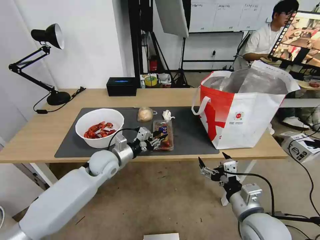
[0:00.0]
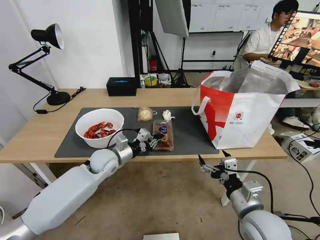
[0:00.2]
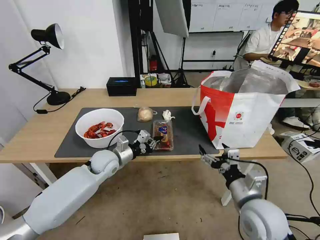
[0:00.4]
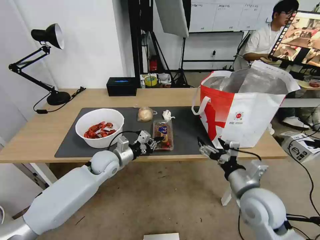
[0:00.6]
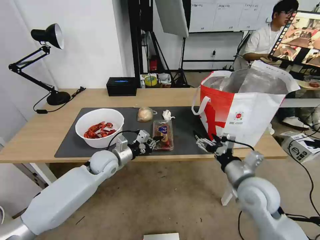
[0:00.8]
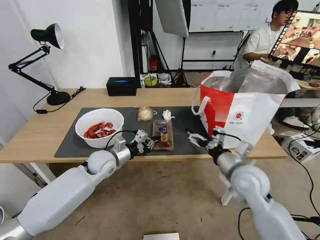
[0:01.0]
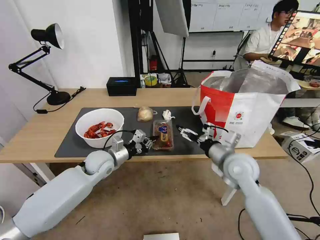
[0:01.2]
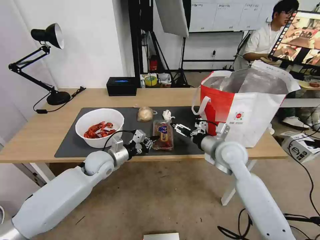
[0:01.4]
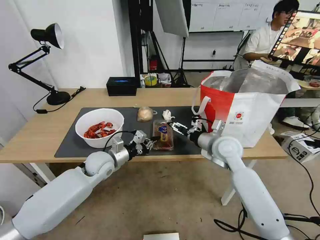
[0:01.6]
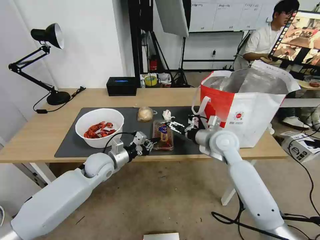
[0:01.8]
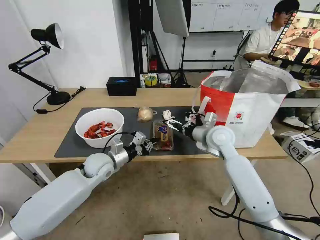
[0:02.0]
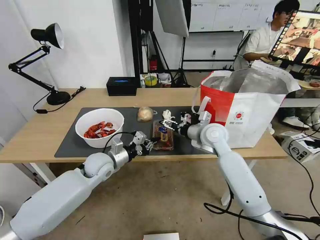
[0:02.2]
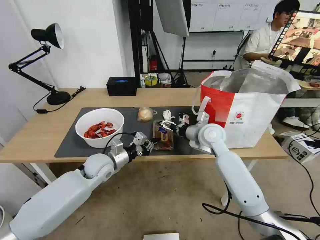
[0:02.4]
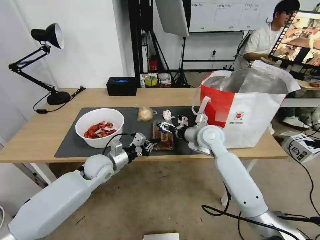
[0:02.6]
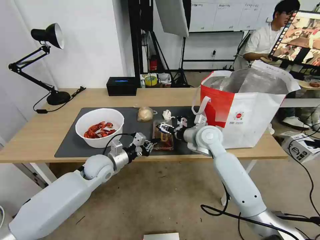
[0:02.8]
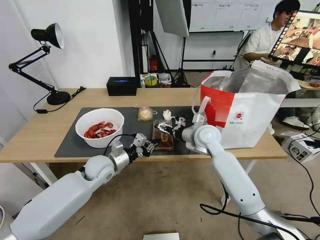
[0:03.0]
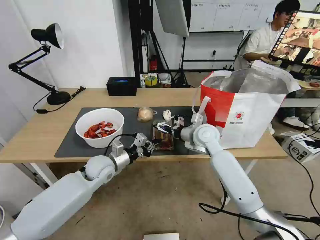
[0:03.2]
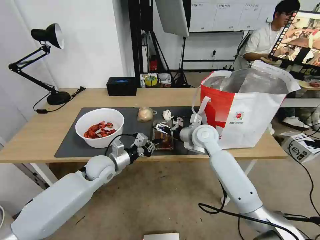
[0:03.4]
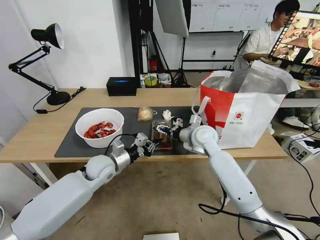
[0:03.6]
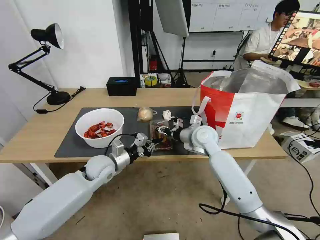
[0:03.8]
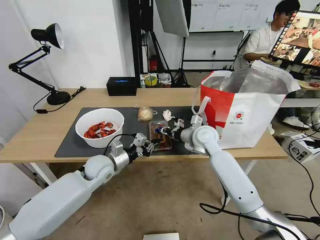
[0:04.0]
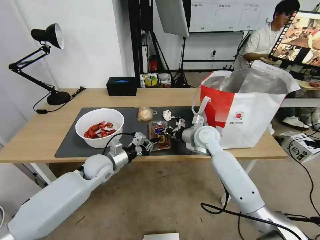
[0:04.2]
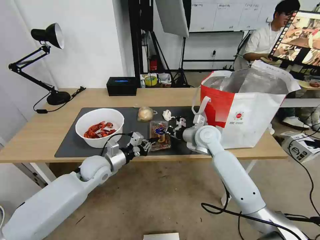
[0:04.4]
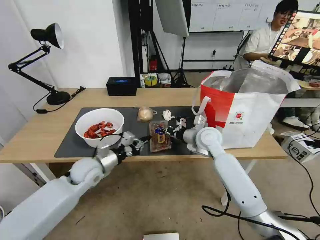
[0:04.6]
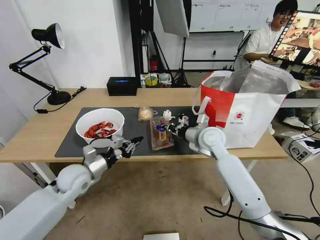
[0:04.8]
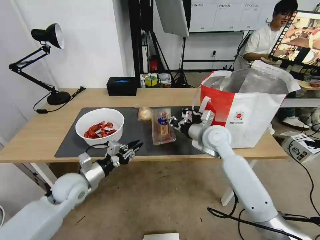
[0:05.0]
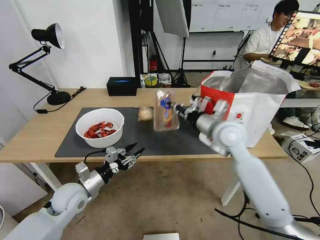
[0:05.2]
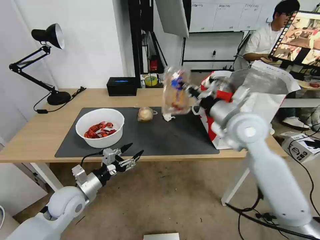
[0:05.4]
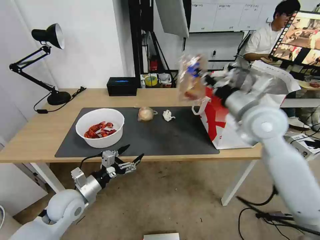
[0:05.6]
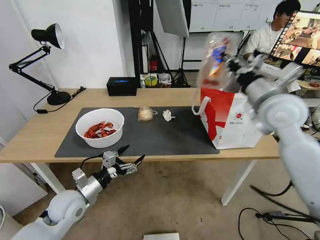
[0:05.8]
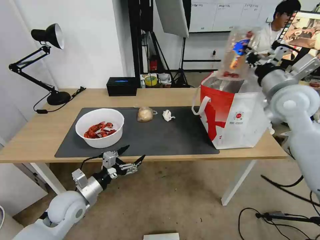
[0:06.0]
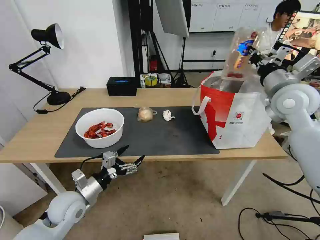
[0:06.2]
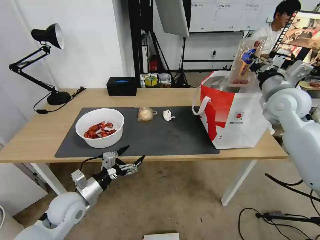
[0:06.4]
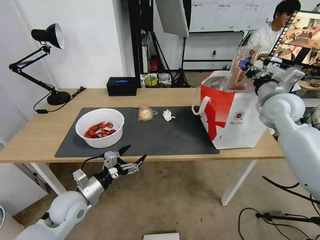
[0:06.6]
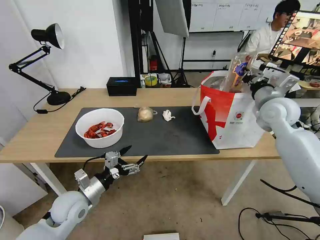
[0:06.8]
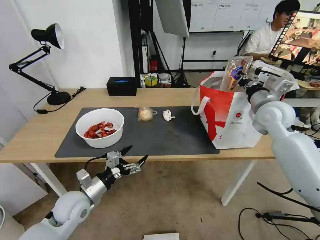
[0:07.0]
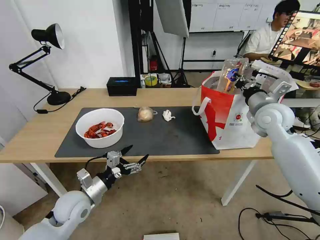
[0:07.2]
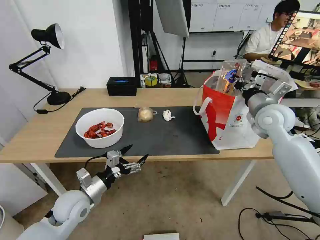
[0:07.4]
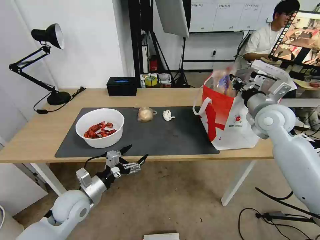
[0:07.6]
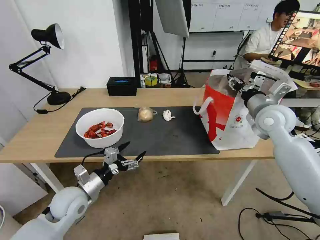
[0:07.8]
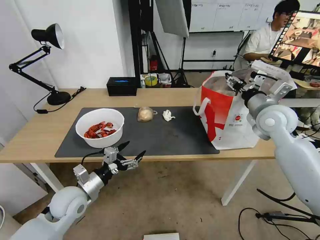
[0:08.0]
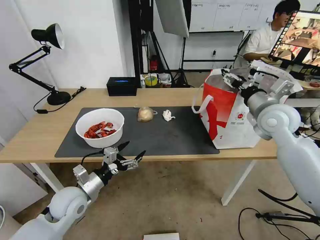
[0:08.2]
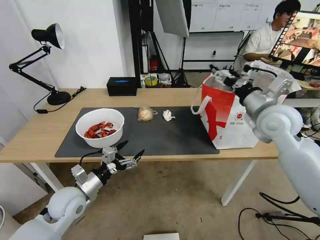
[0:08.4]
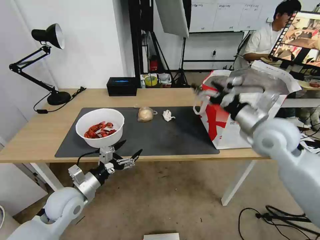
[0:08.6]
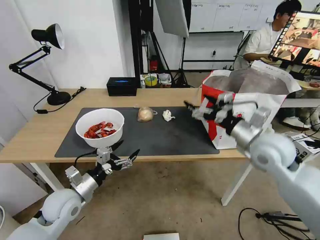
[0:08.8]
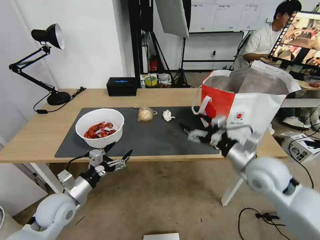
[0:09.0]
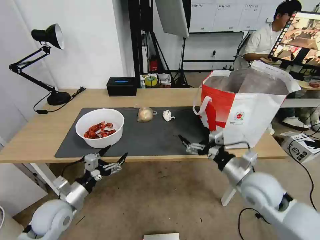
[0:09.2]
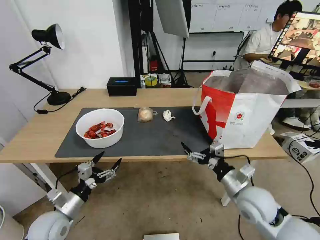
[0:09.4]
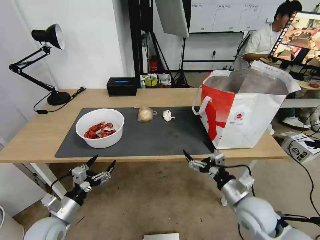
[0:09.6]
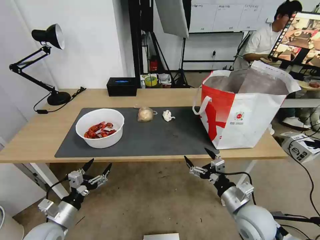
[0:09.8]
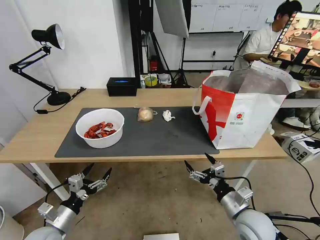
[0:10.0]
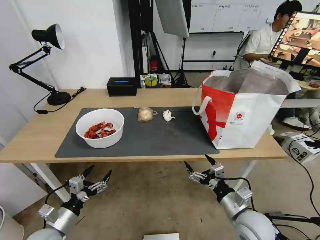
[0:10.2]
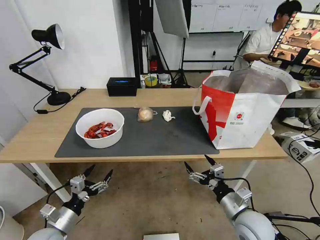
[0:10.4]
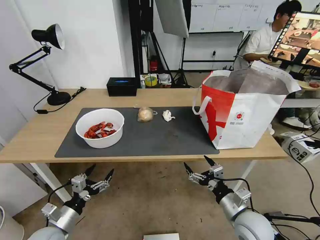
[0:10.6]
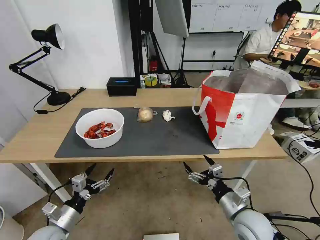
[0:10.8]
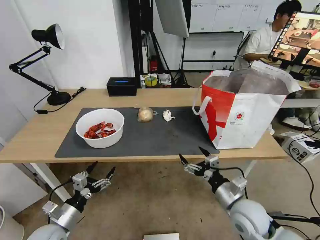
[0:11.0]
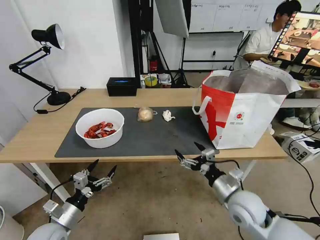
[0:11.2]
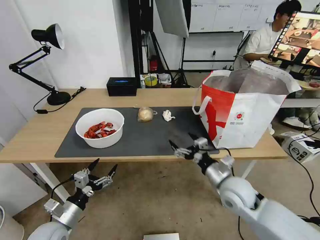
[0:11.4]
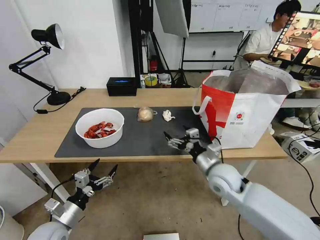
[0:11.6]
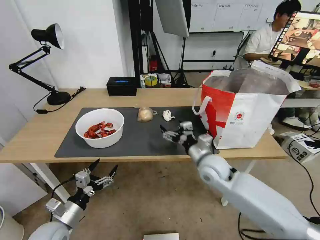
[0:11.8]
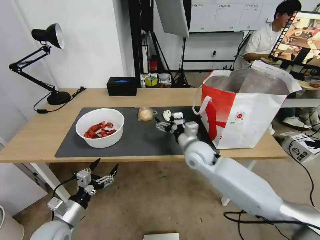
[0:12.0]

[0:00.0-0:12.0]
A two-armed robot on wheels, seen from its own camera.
Task of the whole recording: Pick up the trash from the table and place it into the takeout bag.
0:00.0 to 0:01.6: The right gripper heads forward, covering approximately 20 cm.
0:01.6 to 0:03.0: The right gripper travels forward and to the left by some 10 cm.
0:03.0 to 0:04.4: The right gripper closes up.
0:04.4 to 0:06.0: The left gripper is displaced backward and to the left by some 15 cm, and opens, while the right gripper heads upward and to the right, covering approximately 25 cm.
0:06.0 to 0:07.6: The right gripper goes roughly 5 cm downward.
0:07.6 to 0:09.0: The right gripper shifts roughly 15 cm backward and downward, and opens up.
0:09.0 to 0:10.4: The left gripper shifts approximately 10 cm backward and downward. Meanwhile the right gripper goes some 20 cm downward and backward.
0:10.4 to 0:12.0: The right gripper travels forward and to the left by roughly 25 cm.

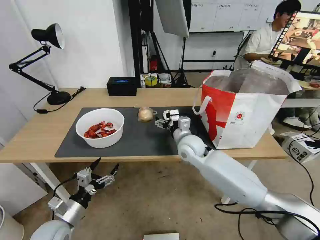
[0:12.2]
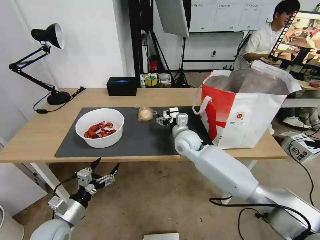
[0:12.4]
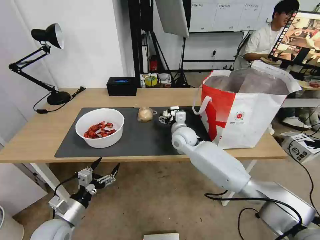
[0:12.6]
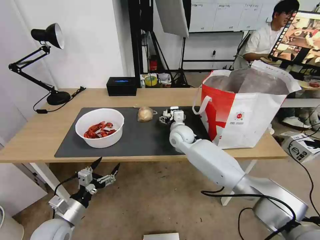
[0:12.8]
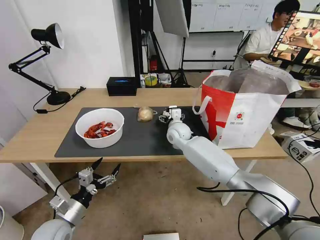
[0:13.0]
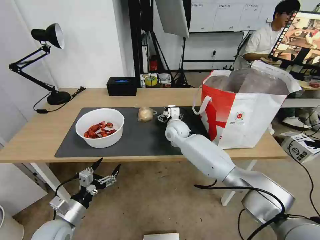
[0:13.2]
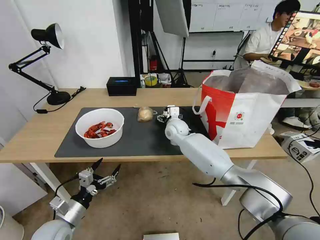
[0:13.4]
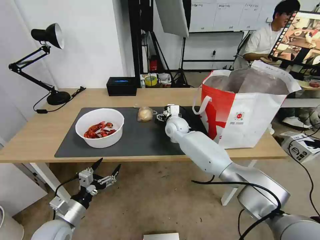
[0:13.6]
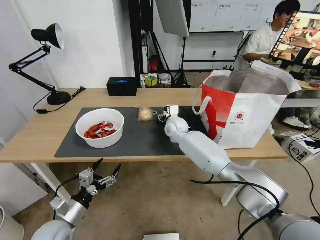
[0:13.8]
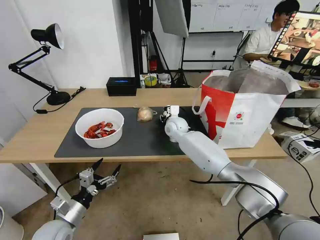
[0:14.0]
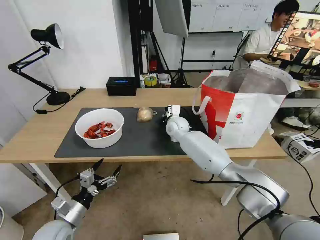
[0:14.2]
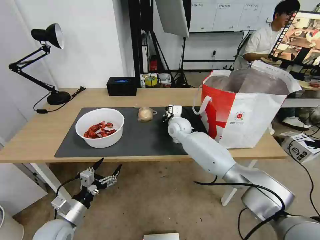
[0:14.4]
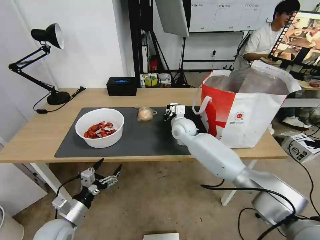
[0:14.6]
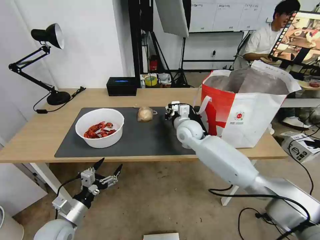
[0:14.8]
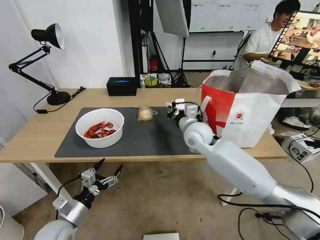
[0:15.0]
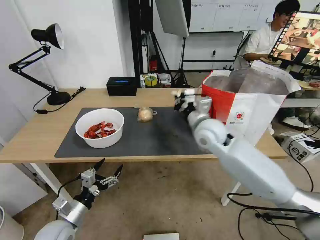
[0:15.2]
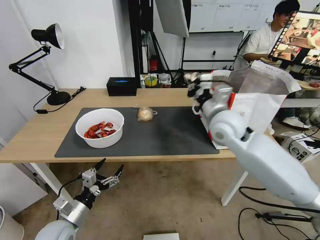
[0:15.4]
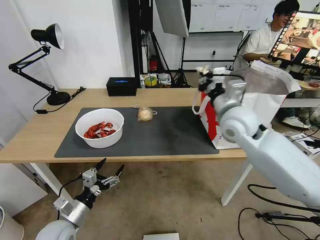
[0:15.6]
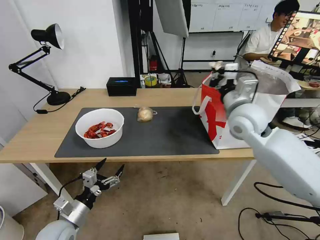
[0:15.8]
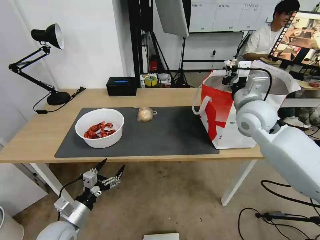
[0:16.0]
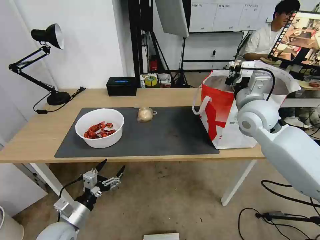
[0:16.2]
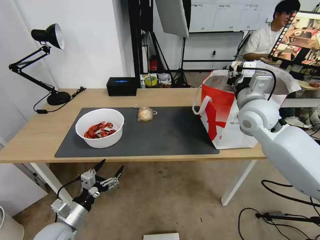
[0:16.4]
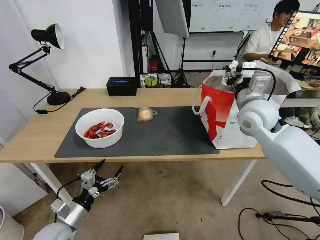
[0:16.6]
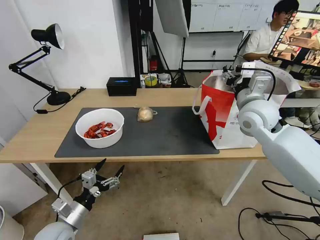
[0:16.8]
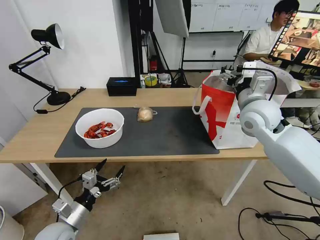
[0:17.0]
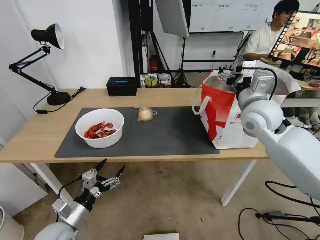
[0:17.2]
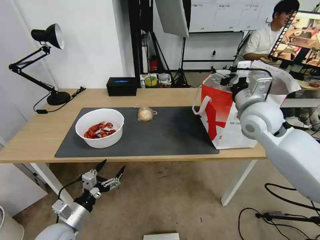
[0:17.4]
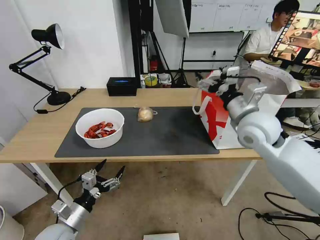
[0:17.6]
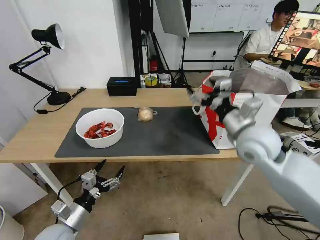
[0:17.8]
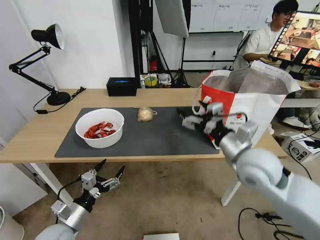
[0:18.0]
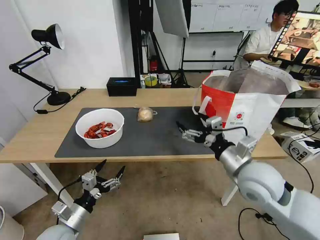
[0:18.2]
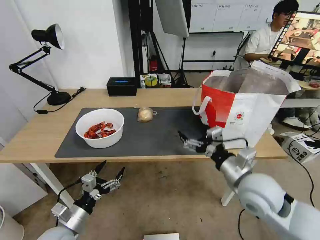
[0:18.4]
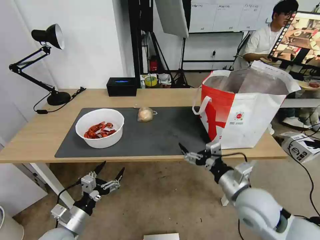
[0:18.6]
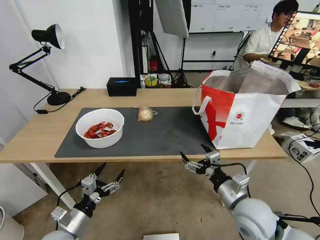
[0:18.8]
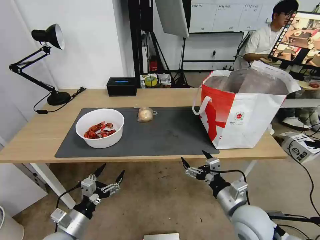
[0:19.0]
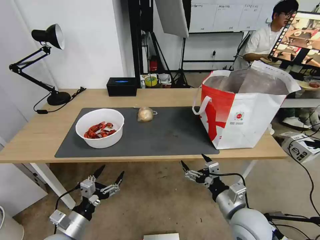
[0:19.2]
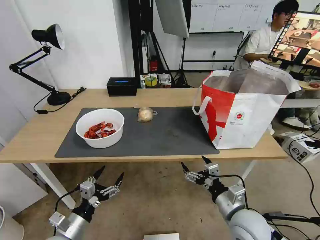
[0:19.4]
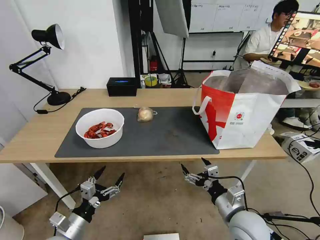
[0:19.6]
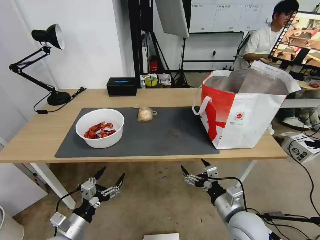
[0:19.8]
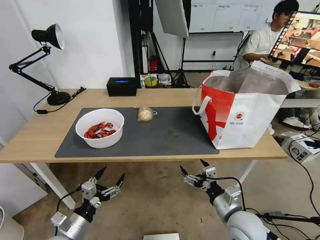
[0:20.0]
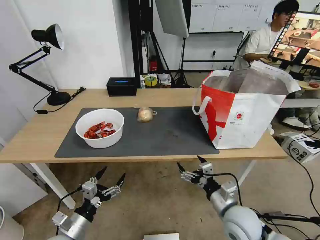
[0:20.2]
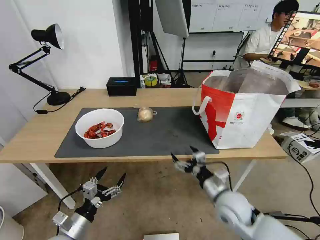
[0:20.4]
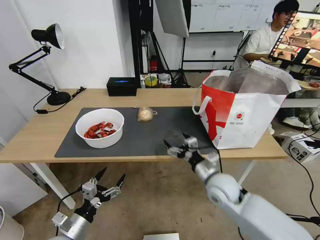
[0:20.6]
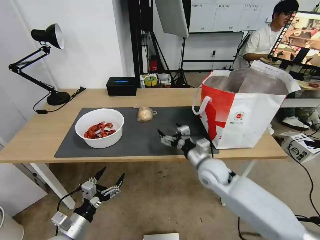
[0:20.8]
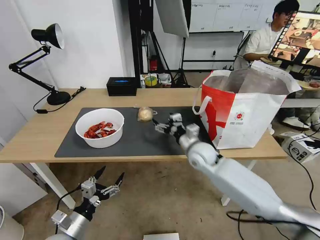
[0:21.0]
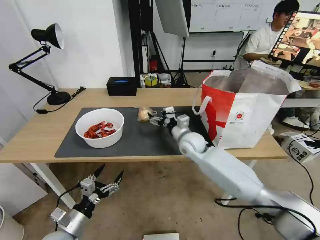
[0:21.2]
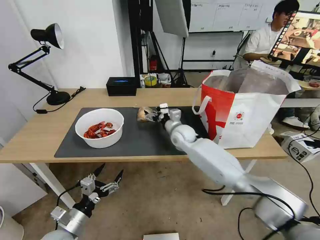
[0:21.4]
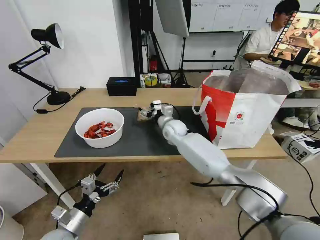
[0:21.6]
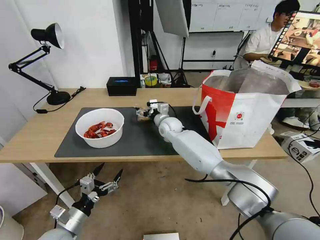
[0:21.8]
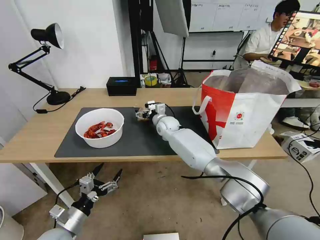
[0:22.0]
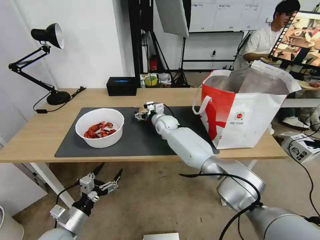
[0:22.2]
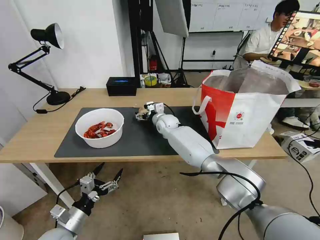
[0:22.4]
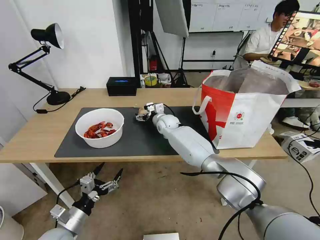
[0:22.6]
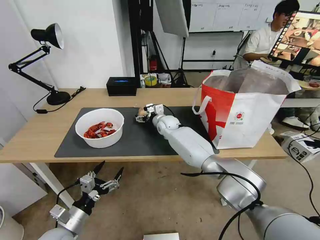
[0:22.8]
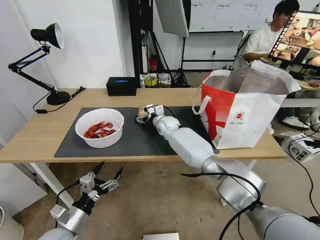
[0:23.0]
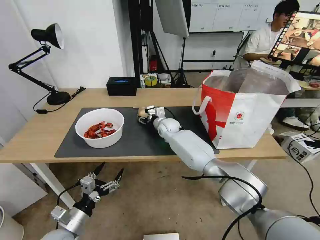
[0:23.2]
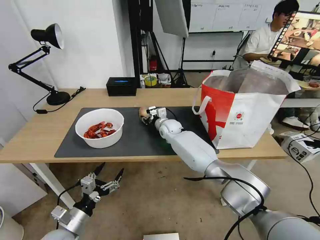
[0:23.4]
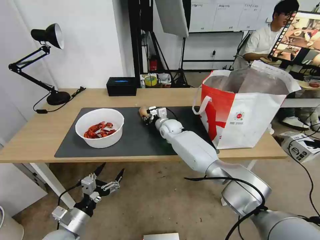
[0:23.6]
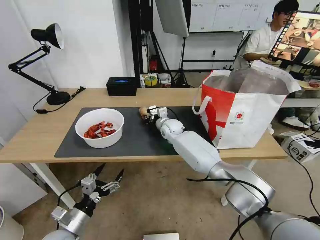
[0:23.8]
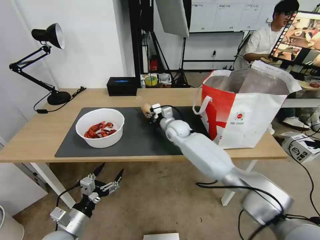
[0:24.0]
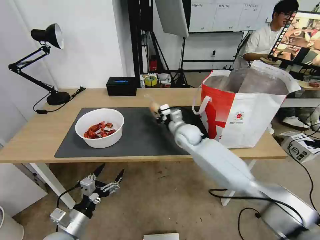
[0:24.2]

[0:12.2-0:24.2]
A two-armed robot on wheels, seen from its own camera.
Task of the whole recording: Pick up the trash from the table and place it into the takeout bag.
0:12.2 to 0:13.8: The right gripper travels forward by roughly 10 cm.
0:13.8 to 0:15.2: The right gripper shifts some 20 cm backward, upward and to the right, and closes up.
0:15.2 to 0:16.6: The right gripper shifts approximately 15 cm to the right and upward, and opens up.
0:16.6 to 0:18.2: The right gripper shifts some 20 cm backward and downward, and opens.
0:18.2 to 0:19.8: The right gripper moves downward and backward, approximately 15 cm.
0:19.8 to 0:21.2: The right gripper heads forward and to the left, covering some 30 cm.
0:21.2 to 0:22.6: The right gripper travels forward and to the left by some 15 cm.
0:22.6 to 0:24.2: The right gripper heads backward and to the right, covering some 10 cm, and closes its fingers.
